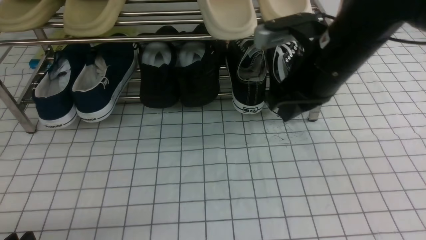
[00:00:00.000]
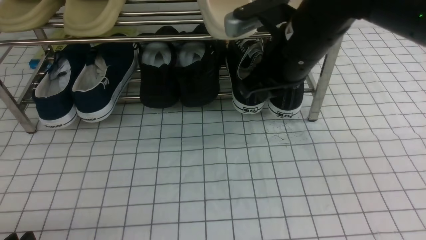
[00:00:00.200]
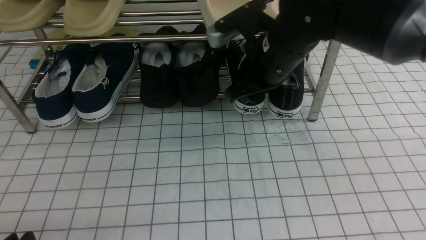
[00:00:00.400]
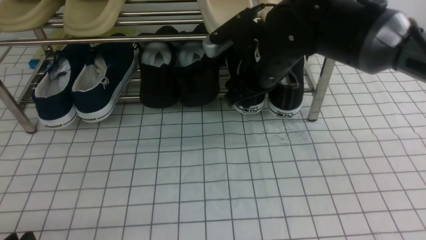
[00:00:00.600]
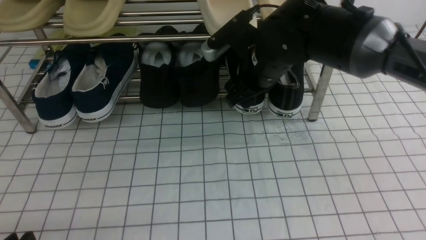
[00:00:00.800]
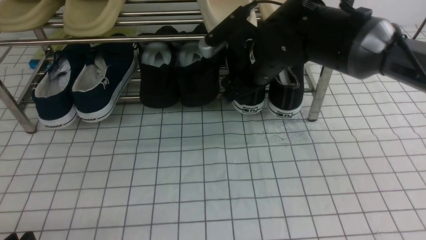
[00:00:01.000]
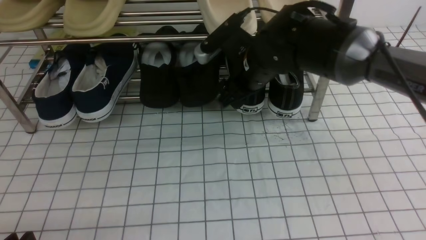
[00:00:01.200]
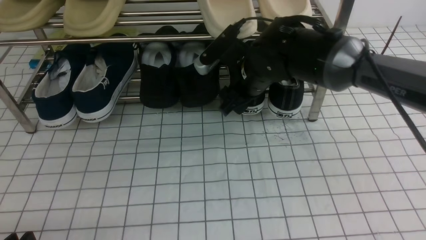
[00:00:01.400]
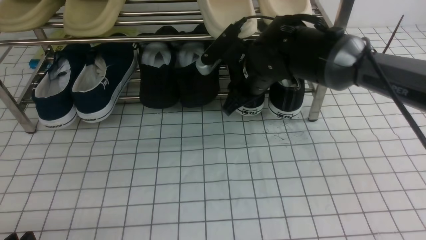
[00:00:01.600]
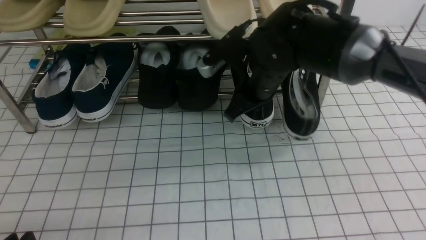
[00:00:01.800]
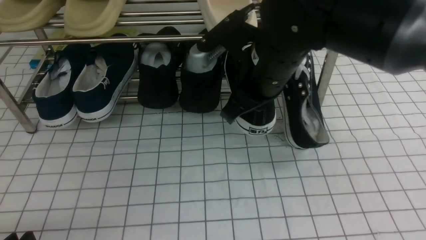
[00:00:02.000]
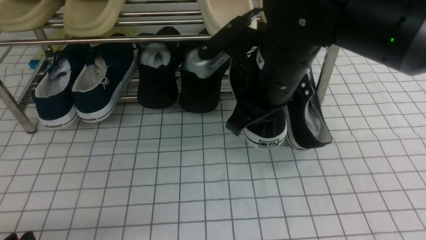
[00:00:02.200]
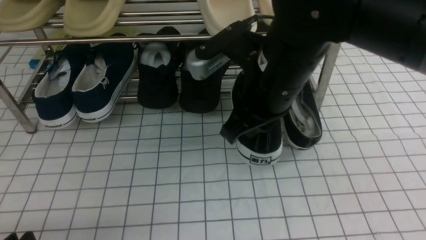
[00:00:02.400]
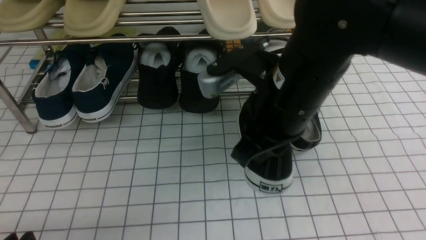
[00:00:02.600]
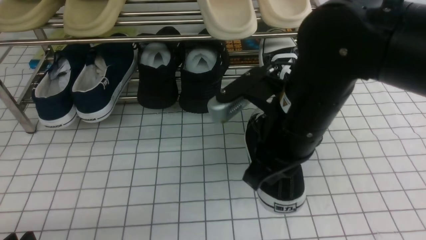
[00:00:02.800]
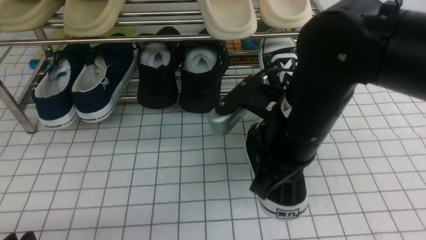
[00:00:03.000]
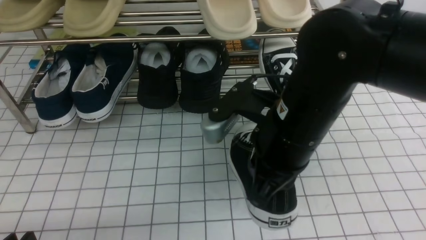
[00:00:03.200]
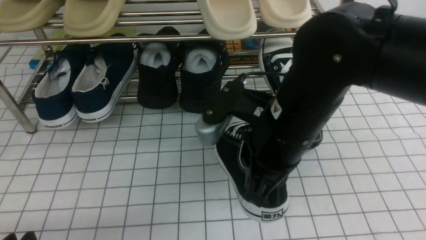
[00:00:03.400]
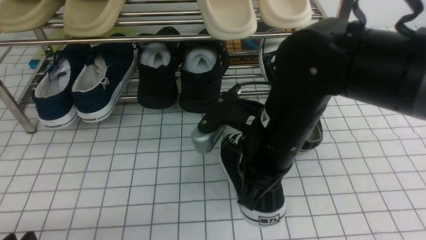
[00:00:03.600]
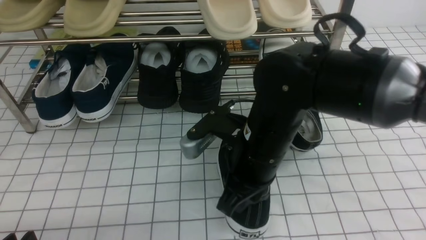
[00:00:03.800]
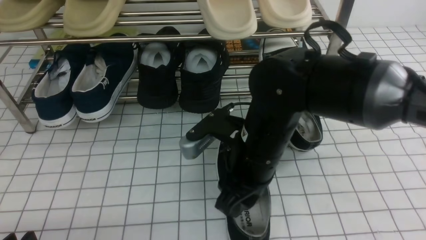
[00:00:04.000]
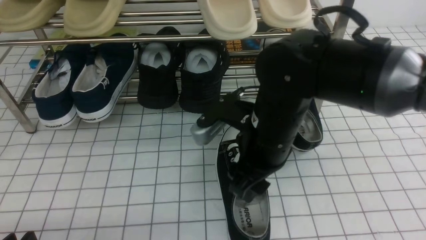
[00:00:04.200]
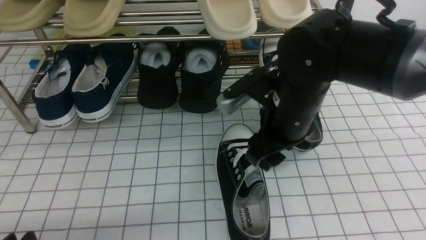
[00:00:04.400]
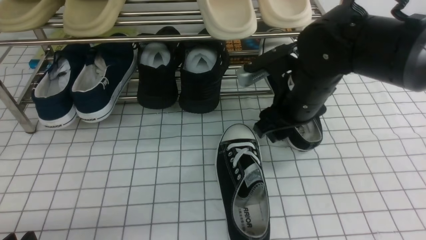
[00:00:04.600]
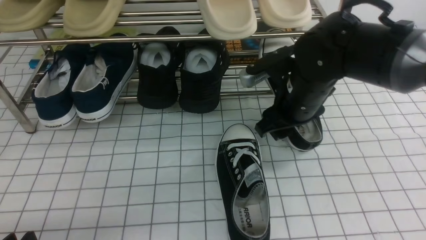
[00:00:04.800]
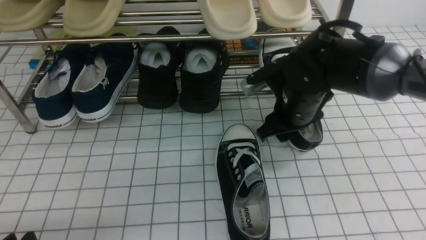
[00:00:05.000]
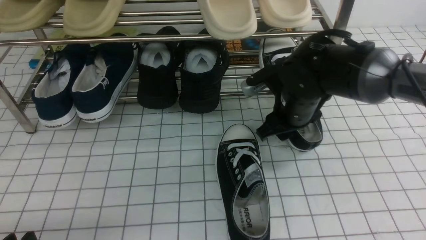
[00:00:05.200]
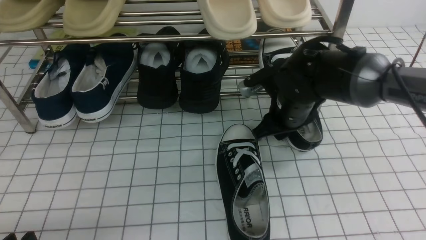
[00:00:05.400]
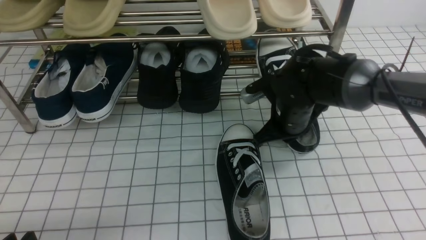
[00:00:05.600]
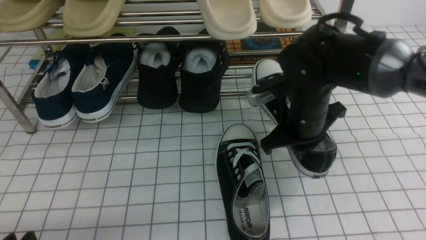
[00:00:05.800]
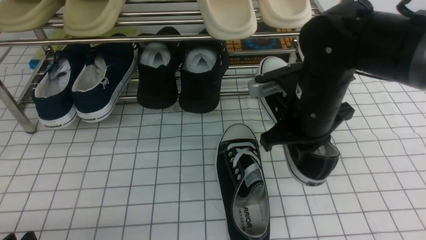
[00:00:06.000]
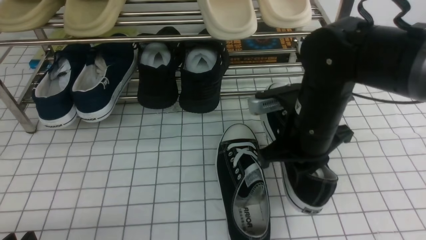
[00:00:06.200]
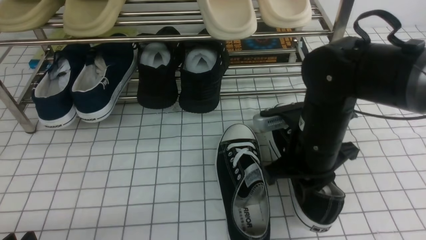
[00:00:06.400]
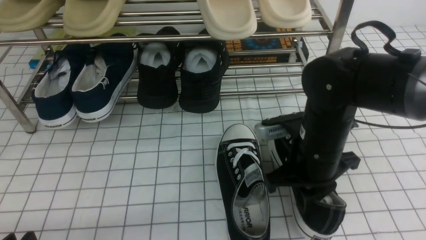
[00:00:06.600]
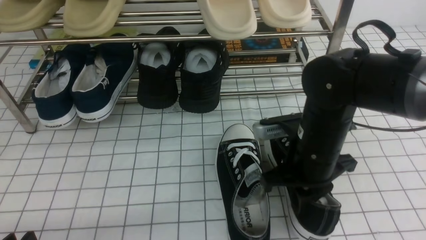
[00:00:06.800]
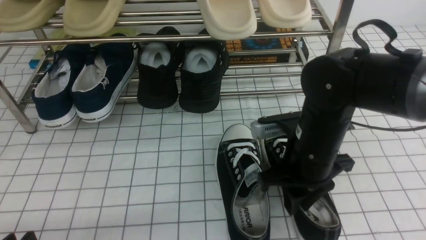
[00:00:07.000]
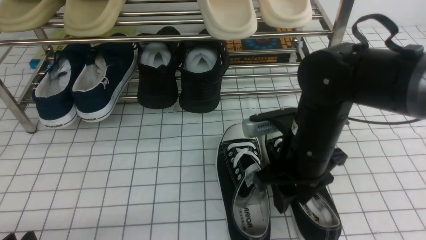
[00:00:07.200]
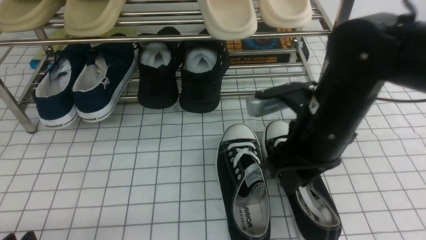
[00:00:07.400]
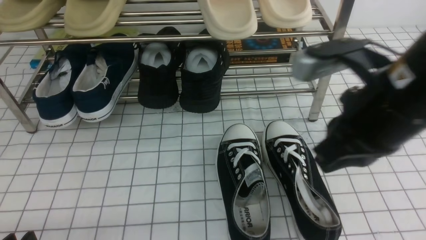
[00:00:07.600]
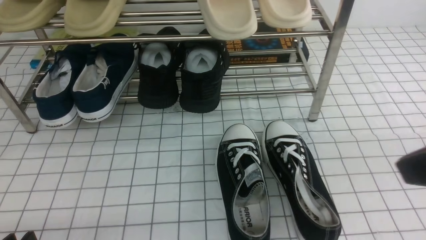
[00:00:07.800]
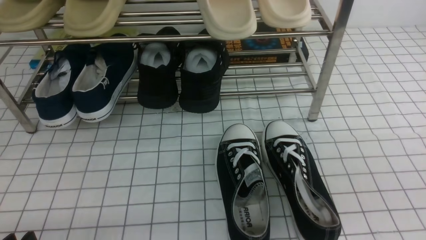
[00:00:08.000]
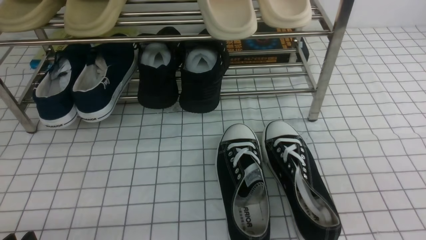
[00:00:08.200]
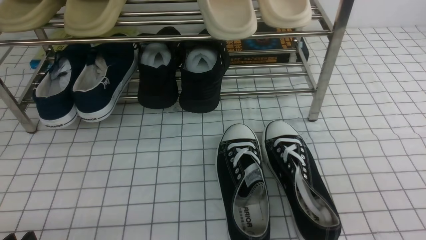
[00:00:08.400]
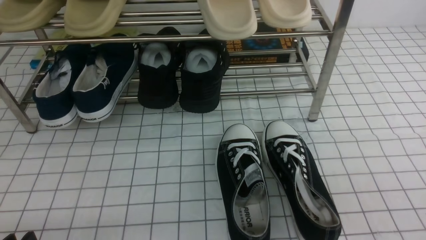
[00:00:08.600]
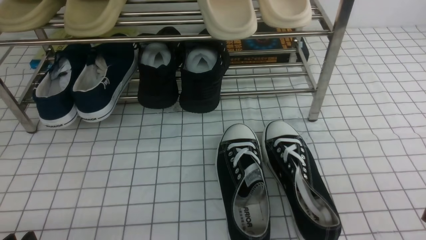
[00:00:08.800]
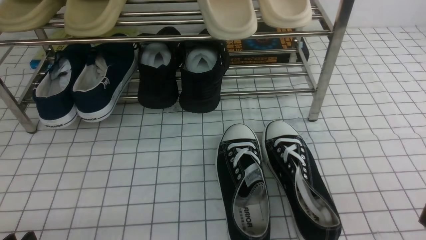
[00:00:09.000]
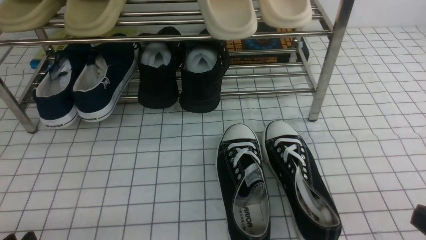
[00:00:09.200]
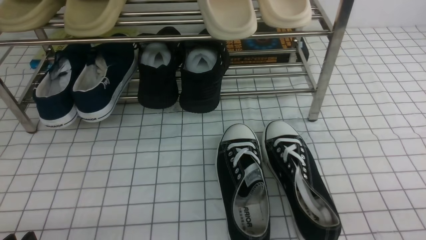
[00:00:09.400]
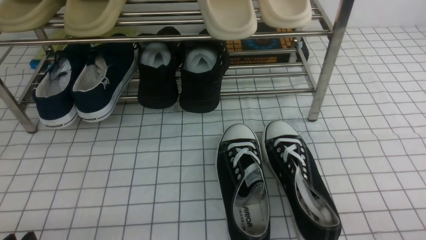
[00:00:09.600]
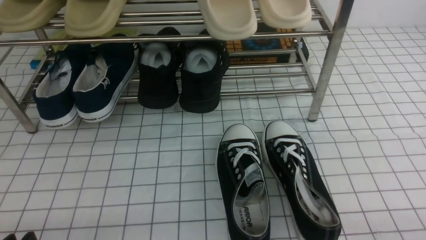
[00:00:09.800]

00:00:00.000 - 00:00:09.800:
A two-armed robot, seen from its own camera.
Step, 00:00:01.800 - 00:00:04.200: use the right arm to take out the clamped shoe from the shoe rack and put it down.
Step, 00:00:04.400 - 00:00:05.400: use the right arm to clamp a shoe on the right side of the shoe rack.
Step, 00:00:05.600 - 00:00:07.400: use the right arm to take out the clamped shoe from the shoe rack and put it down.
00:00:00.000 - 00:00:01.400: The right gripper is displaced forward, downward and to the left by roughly 15 cm, and opens its fingers.
00:00:01.400 - 00:00:02.800: The right gripper heads backward and upward, covering about 15 cm, and closes its fingers.
00:00:02.800 - 00:00:04.200: The left gripper opens. Meanwhile the right gripper moves downward, some 5 cm, and opens.
00:00:04.200 - 00:00:05.600: The right gripper heads forward, downward and to the right, covering roughly 10 cm, and closes.
00:00:05.600 - 00:00:07.000: The right gripper moves backward, some 10 cm.
00:00:07.000 - 00:00:08.400: The right gripper shifts about 30 cm backward and to the right, and closes.

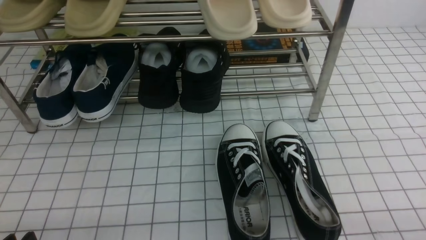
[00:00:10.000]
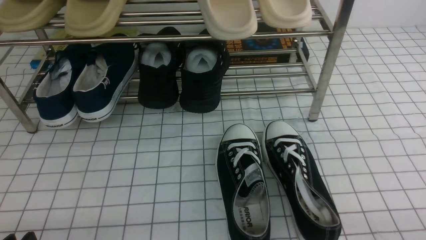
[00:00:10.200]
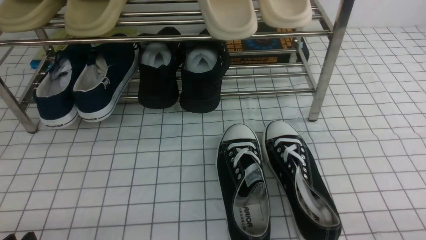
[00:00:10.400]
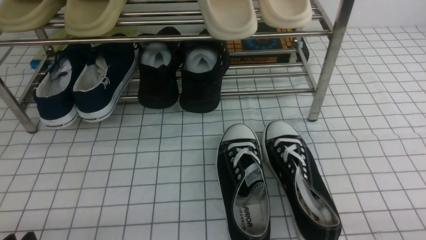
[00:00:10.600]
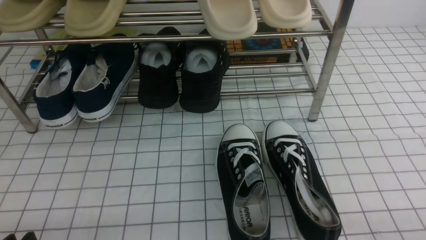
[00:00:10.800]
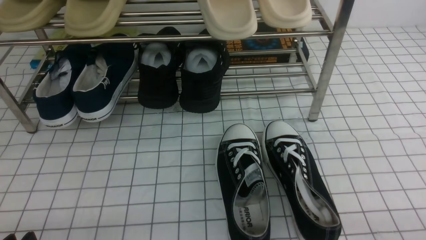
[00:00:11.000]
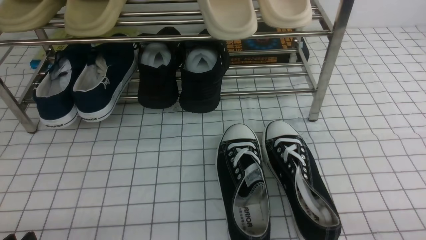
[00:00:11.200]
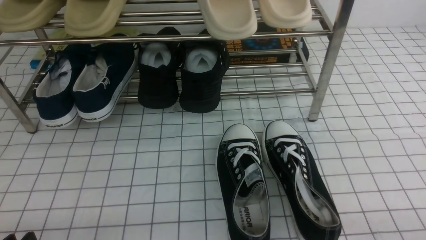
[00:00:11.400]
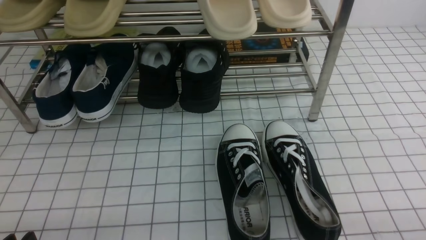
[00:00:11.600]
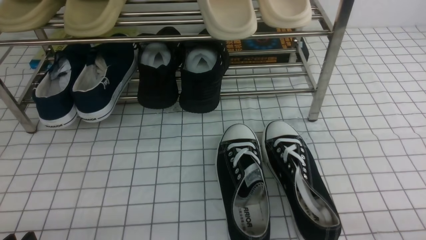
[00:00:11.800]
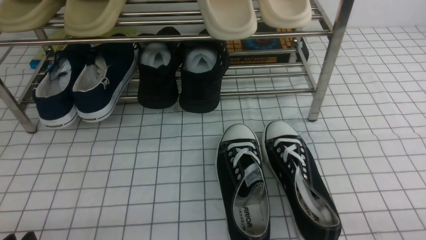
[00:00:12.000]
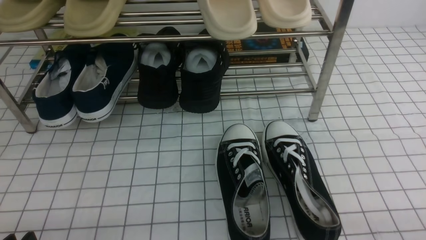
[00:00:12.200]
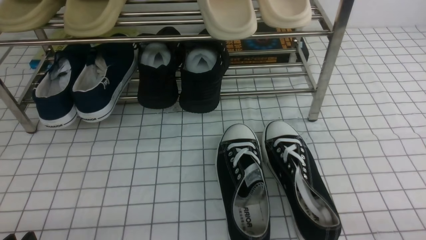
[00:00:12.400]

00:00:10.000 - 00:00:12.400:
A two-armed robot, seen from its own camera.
00:00:10.000 - 00:00:12.400: Both grippers stay put.
